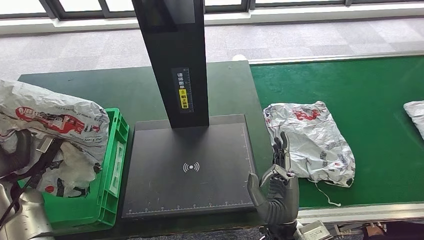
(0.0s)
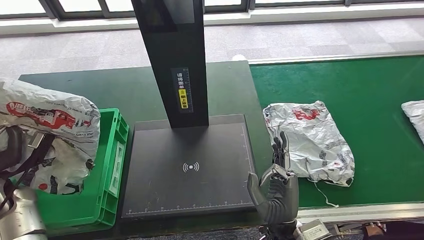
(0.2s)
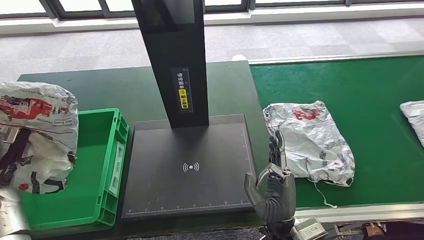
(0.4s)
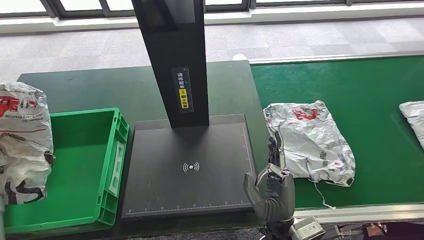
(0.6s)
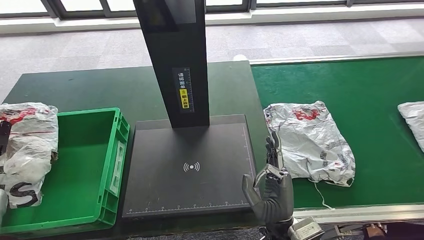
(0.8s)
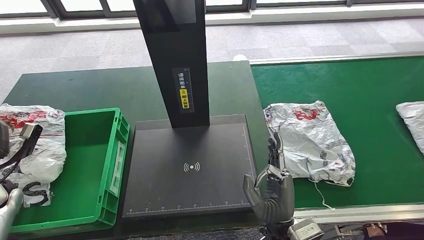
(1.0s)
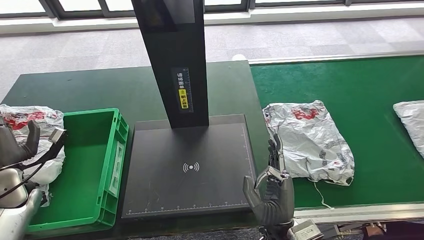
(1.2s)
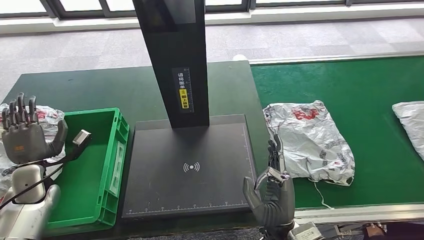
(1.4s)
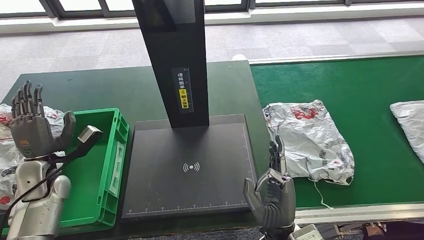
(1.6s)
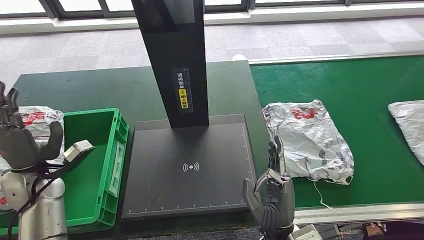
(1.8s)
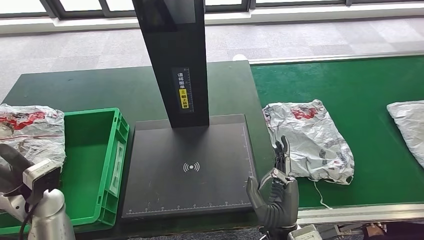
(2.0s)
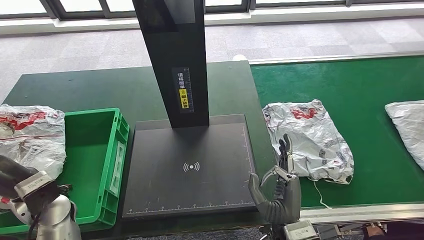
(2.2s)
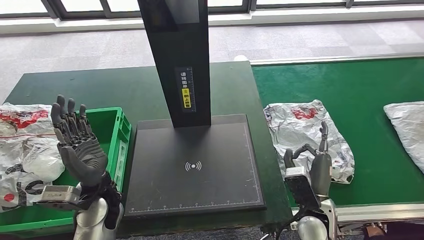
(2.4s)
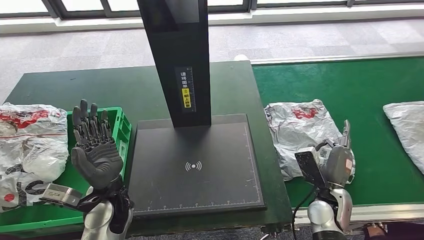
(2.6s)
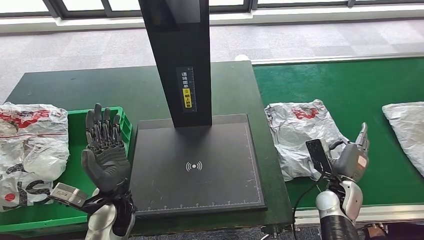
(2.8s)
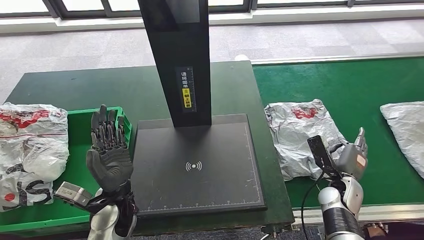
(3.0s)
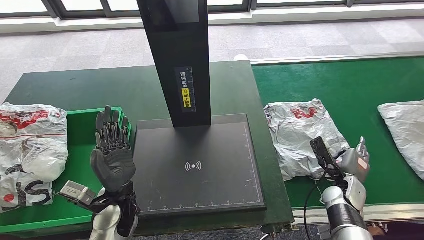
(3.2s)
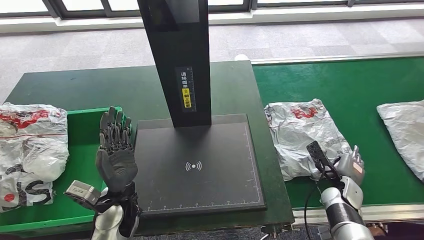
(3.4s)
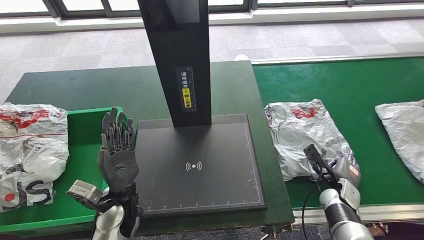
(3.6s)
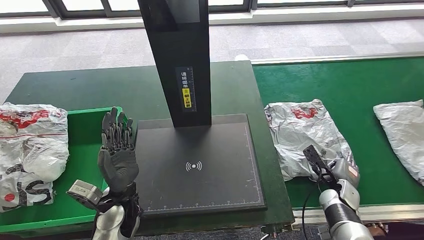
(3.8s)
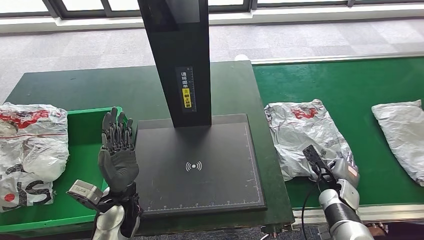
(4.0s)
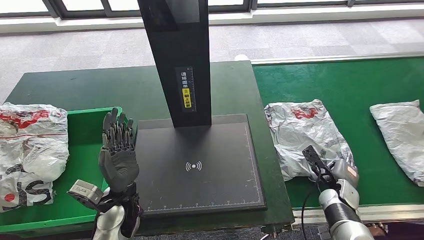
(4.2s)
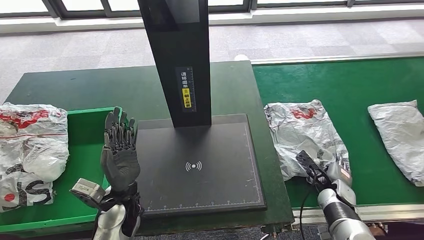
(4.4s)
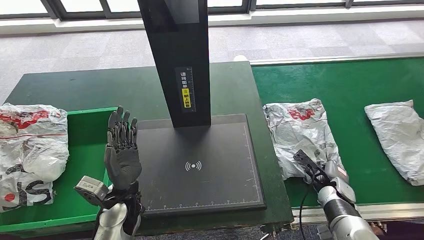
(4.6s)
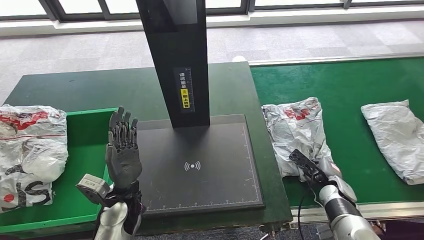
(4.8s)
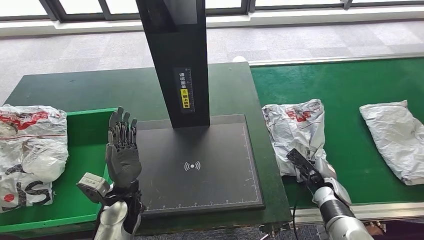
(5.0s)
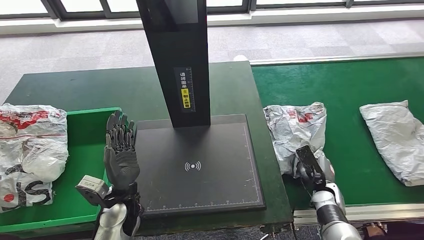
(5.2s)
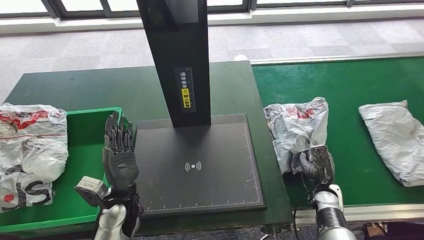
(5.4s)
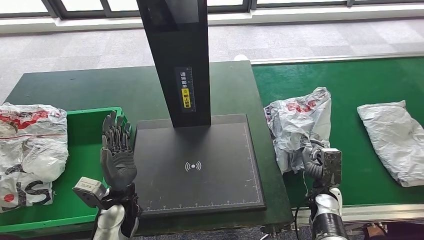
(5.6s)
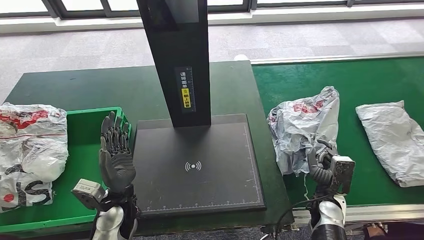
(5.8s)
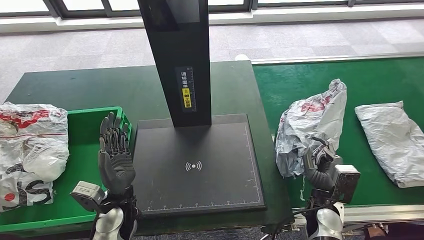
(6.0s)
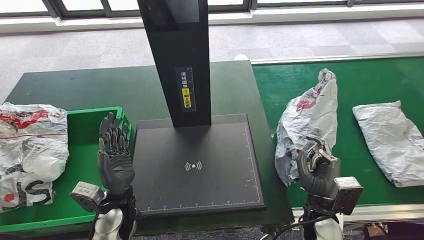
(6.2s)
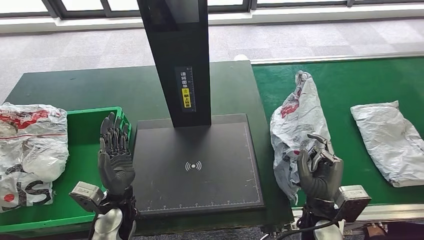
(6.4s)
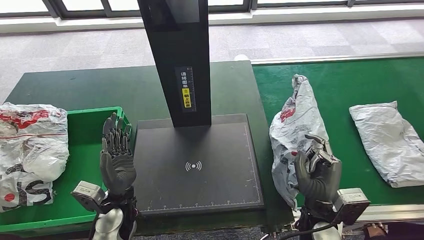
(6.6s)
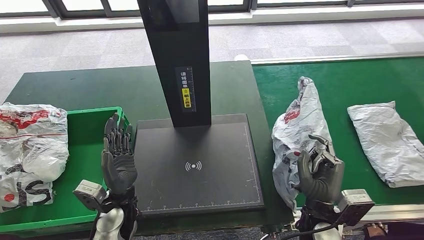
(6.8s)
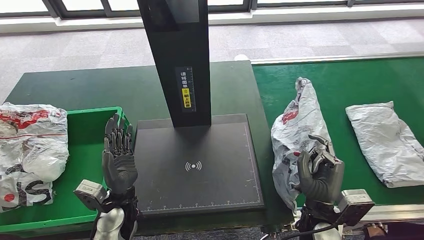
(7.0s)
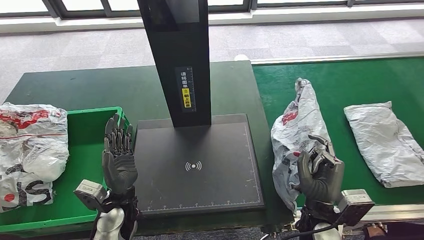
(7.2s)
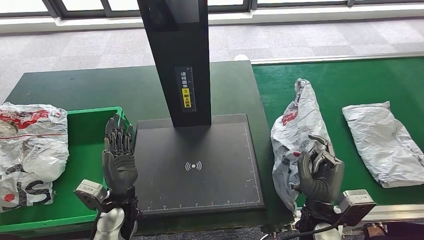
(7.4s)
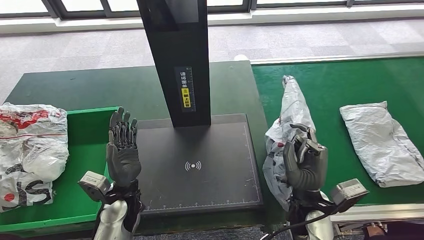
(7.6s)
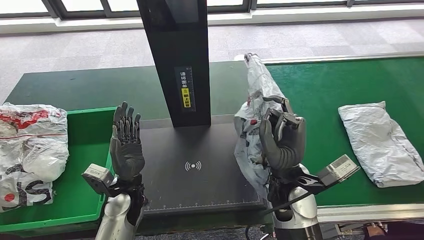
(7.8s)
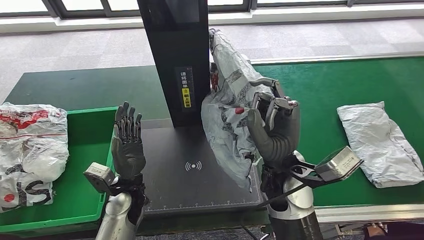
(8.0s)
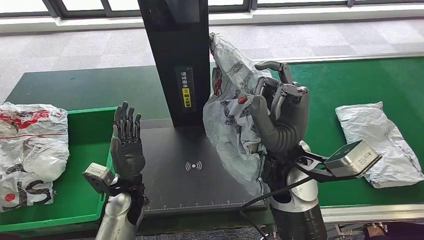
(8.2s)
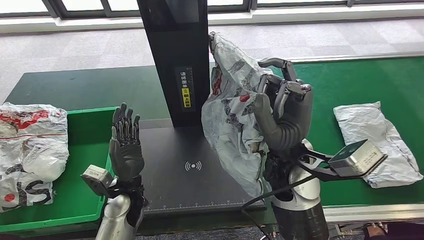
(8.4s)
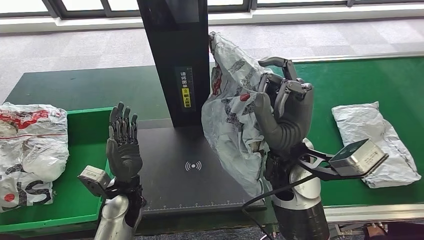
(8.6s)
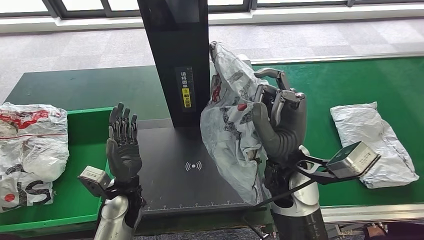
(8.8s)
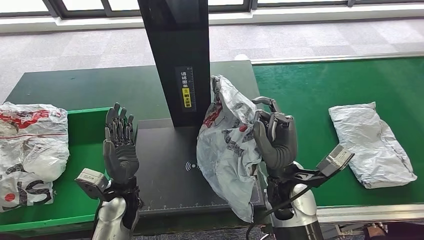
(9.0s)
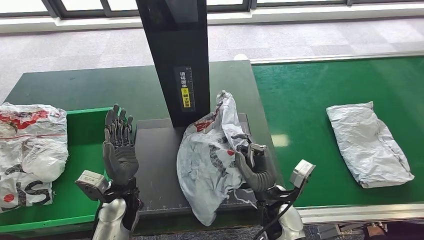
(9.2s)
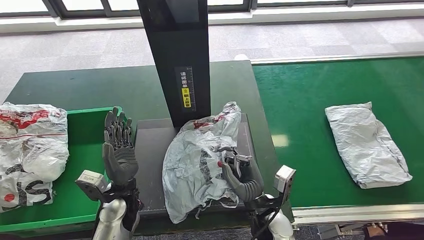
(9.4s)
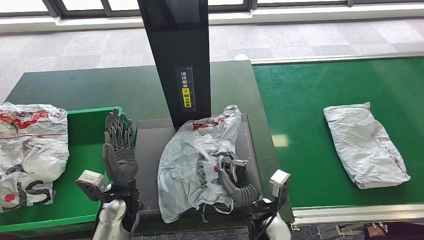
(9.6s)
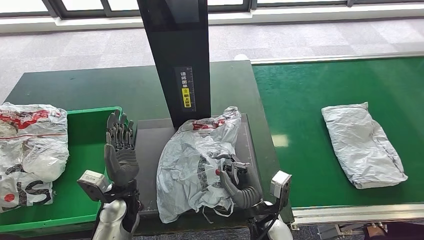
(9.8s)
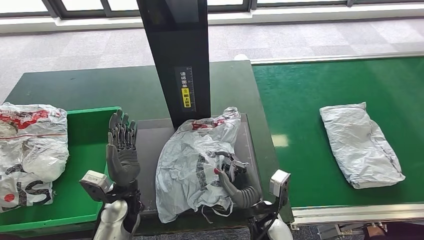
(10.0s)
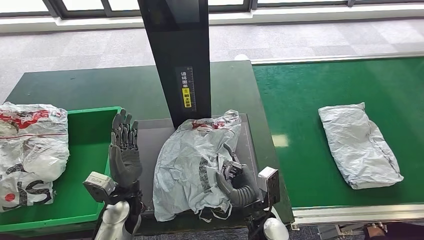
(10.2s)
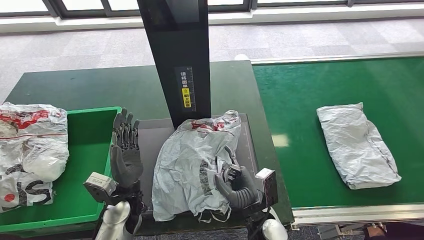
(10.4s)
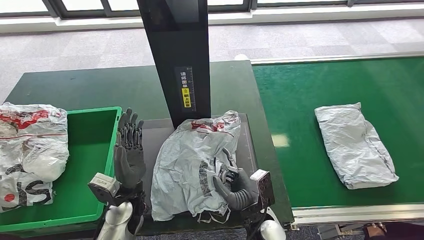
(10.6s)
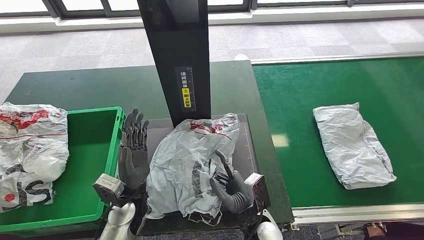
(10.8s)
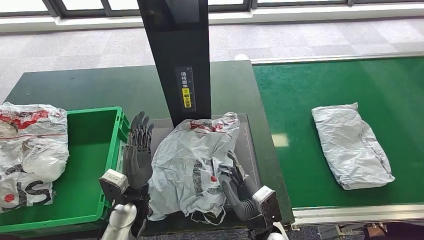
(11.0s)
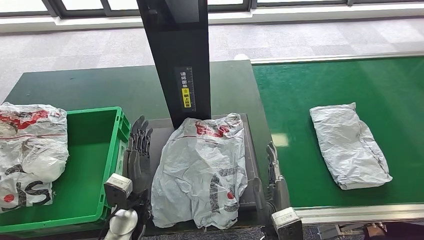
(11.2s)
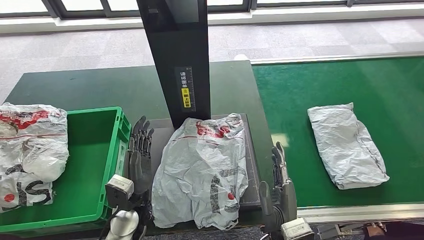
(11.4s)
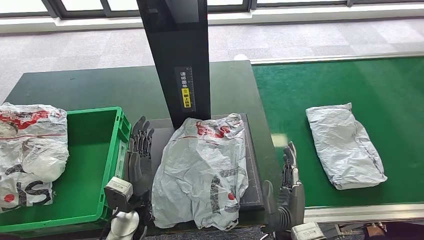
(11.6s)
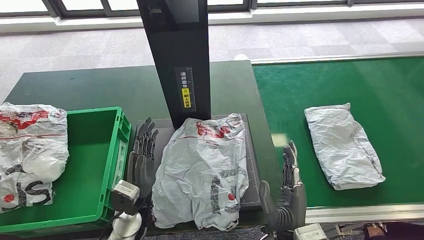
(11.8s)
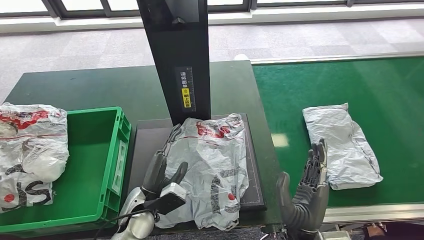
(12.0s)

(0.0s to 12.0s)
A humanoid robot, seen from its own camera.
Step, 0.0s - 2.8s: Put the parcel inside the courier box.
Step, 3.0s - 6.6s: Pick up the parcel from the conveyor belt.
Step, 6.8s - 11.4s: Place the parcel onto the inbound machine.
0.0s - 1.6s: The left hand heads to the right, covering roughly 5 cm.
4.4s - 6.0s: The right hand goes roughly 10 cm to the left and backward.
6.0s - 7.6s: The right hand shifts roughly 10 cm upward and to the left.
10.4s - 12.0s: The right hand shifts about 10 cm upward, backward and to the right.

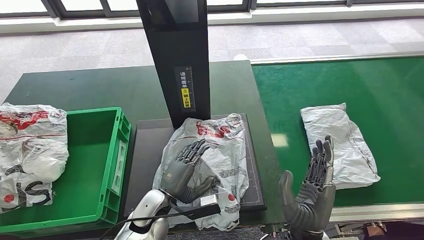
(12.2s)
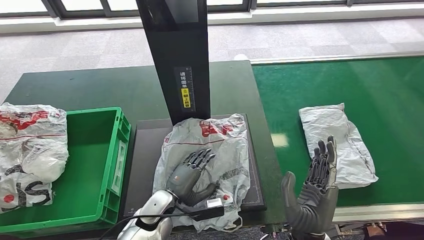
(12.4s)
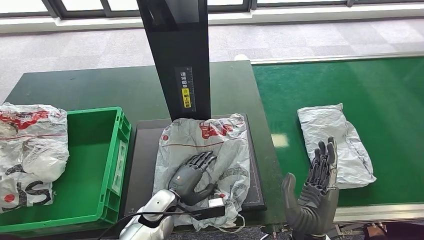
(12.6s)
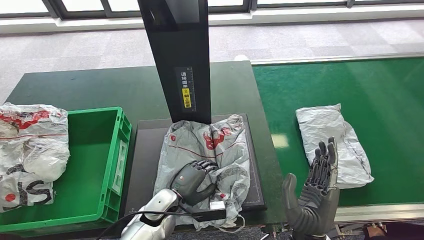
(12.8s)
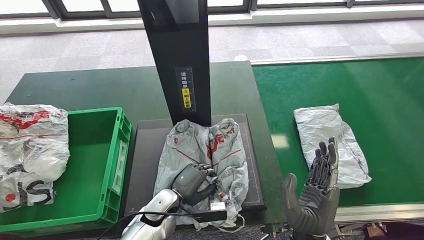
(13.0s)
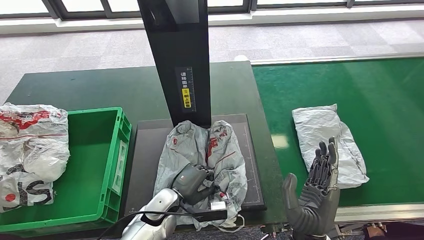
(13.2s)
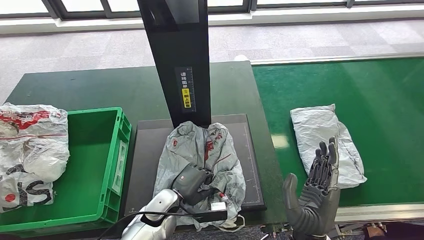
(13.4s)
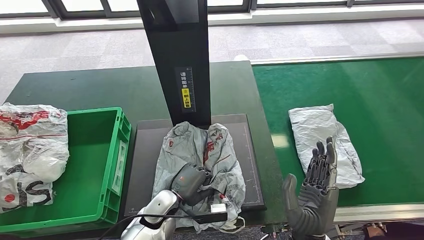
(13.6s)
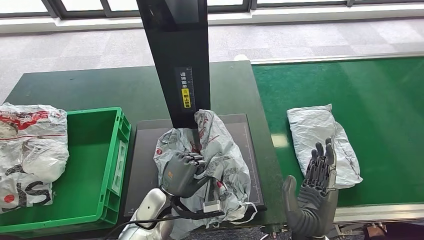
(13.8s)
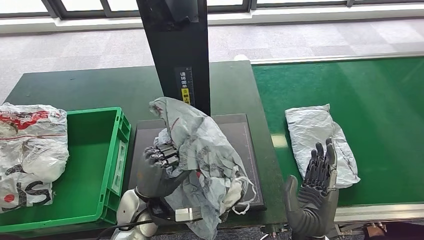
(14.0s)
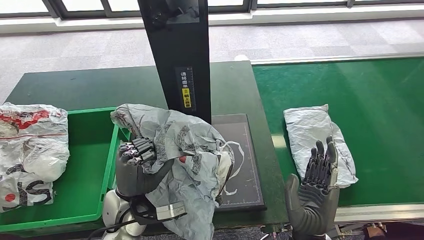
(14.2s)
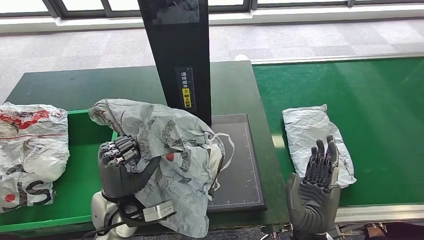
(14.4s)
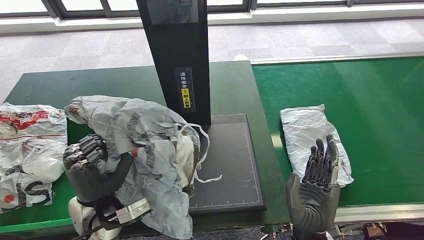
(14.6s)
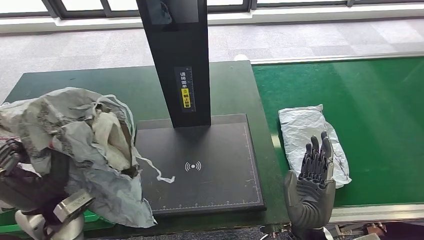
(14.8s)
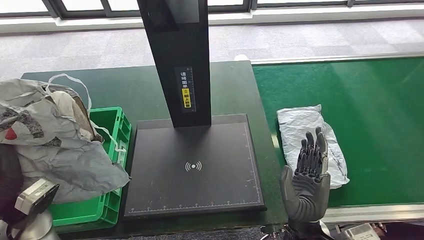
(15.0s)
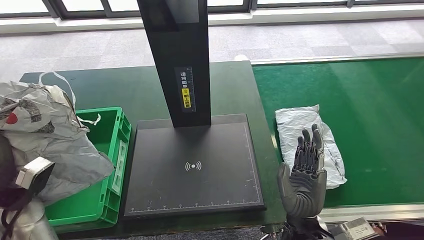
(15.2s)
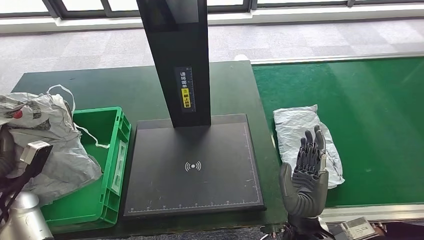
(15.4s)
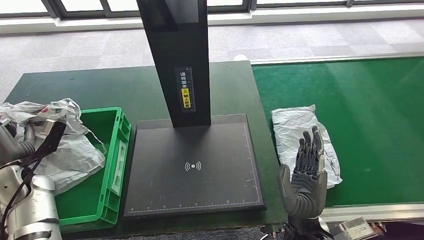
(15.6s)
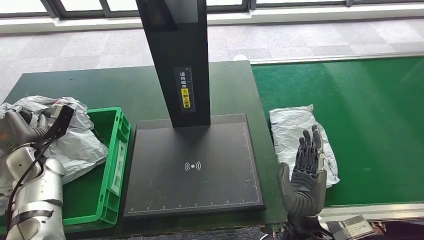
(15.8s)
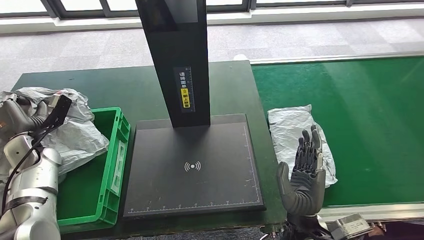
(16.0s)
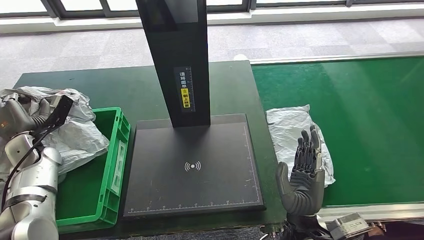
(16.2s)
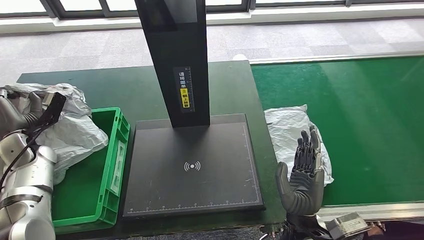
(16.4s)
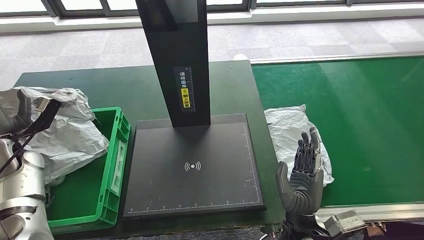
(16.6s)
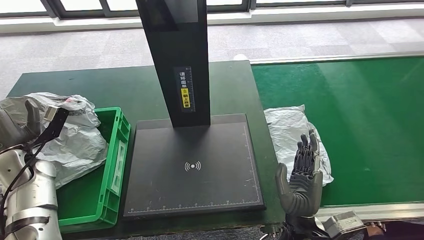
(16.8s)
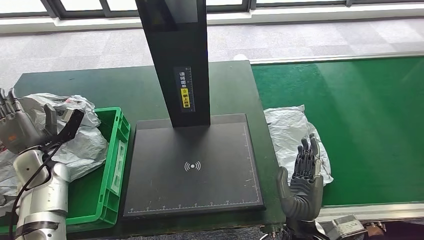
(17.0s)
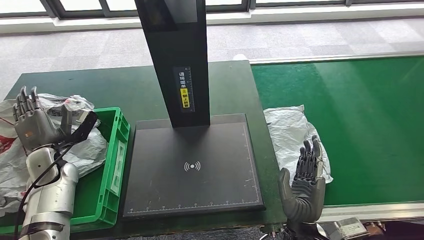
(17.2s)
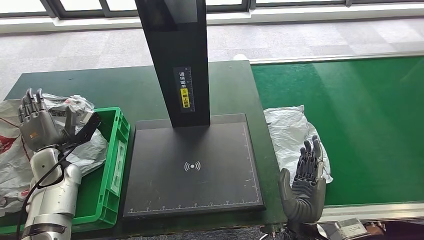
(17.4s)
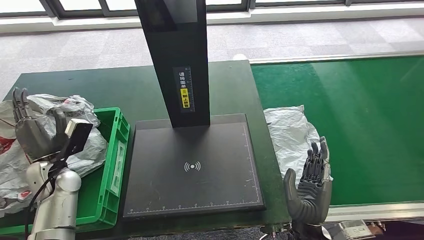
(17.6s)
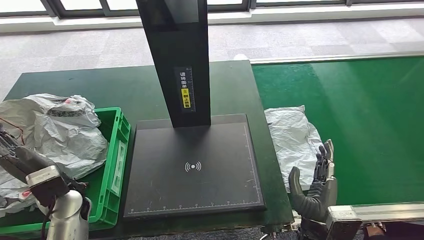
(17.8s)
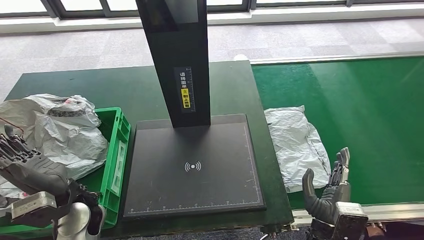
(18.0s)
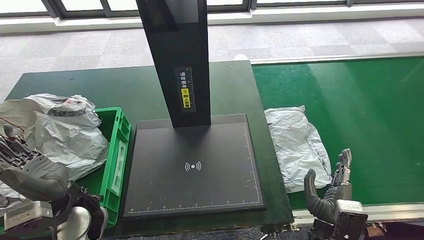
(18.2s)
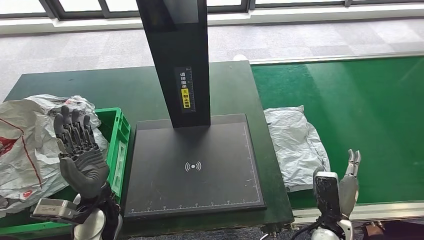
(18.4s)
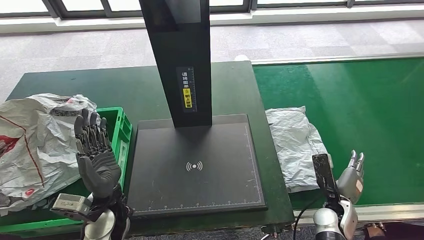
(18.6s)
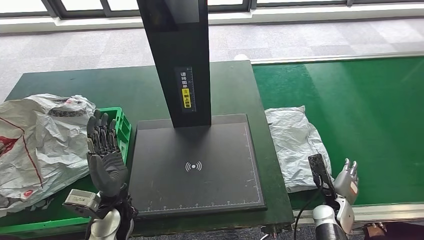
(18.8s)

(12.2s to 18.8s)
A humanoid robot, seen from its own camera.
Step, 12.2s - 14.8s: Pick up the parcel from the inbound machine.
Step, 15.2s - 18.2s: Place the parcel into the delivery box.
12.2s - 13.8s: The hands stay close to where they were, moving slightly.
17.2s - 18.8s: The right hand is displaced to the right, downward and forward by some 20 cm. Meanwhile the left hand shifts about 25 cm to the right and backward.
